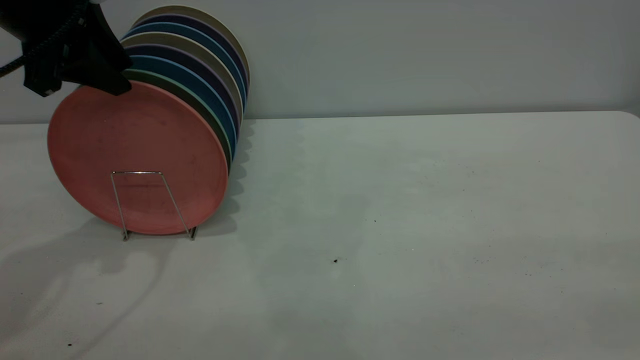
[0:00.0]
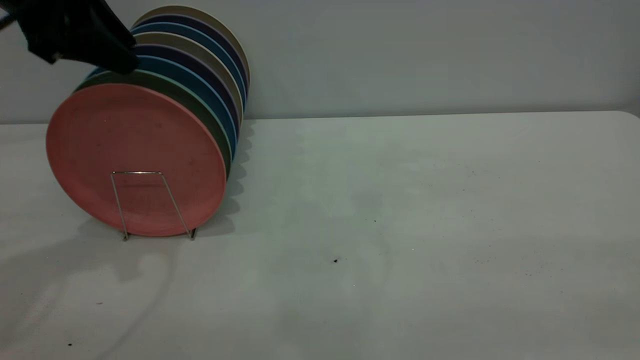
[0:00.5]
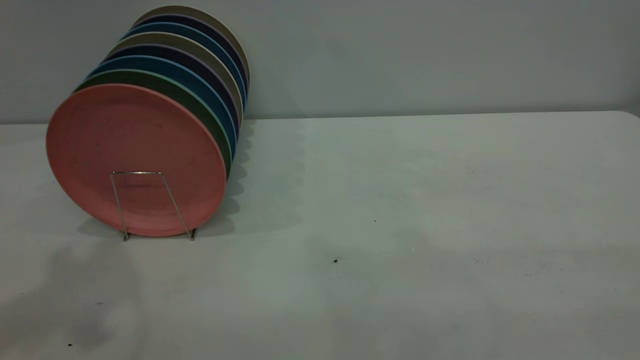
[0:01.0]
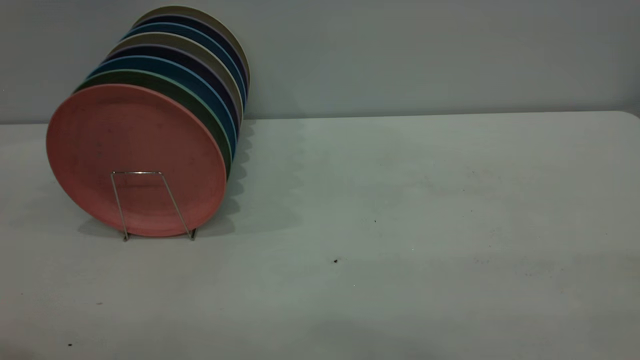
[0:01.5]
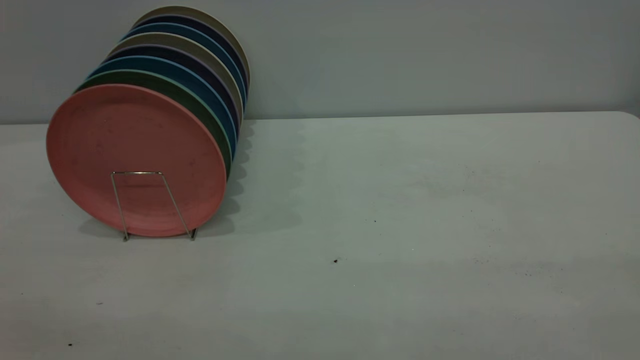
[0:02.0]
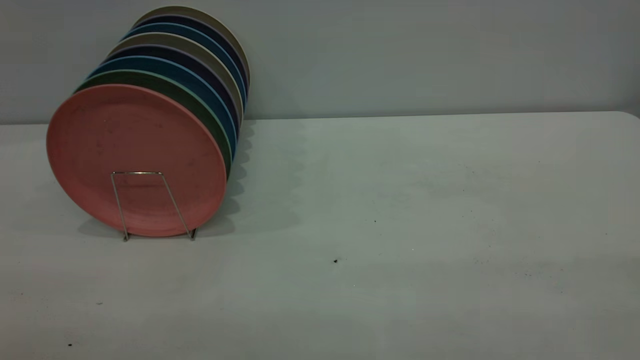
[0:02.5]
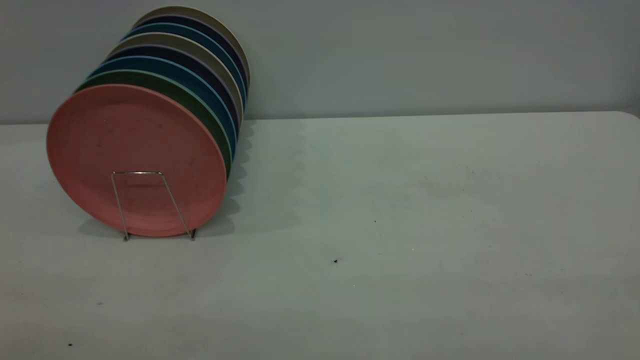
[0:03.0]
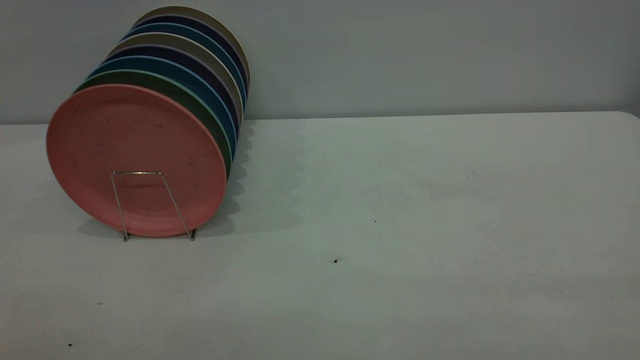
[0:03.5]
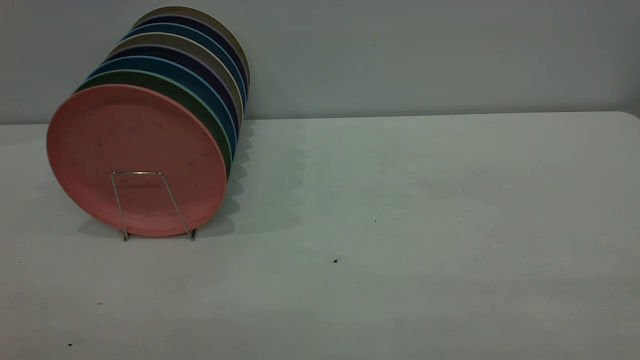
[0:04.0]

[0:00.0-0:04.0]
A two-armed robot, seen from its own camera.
Task of the whole recording: the right gripper grasp the pink plate, the right gripper pass the pink plate to the left gripper, and the left gripper place the pink plate on the plate rack.
0:00.0 to 0:02.0: The left gripper is displaced backward by about 35 cm.
